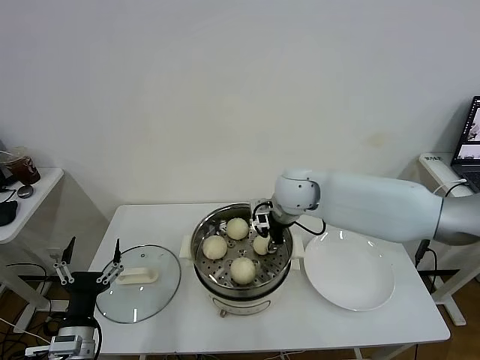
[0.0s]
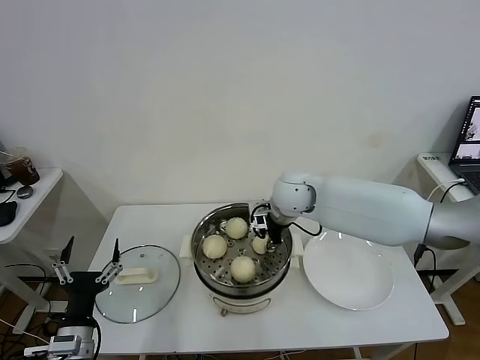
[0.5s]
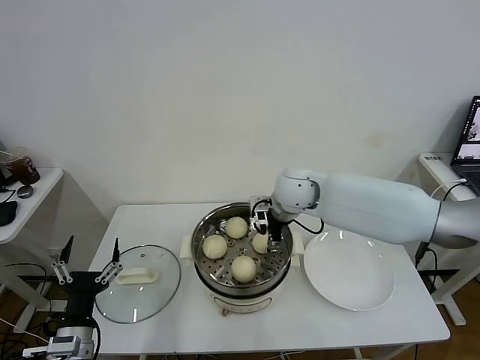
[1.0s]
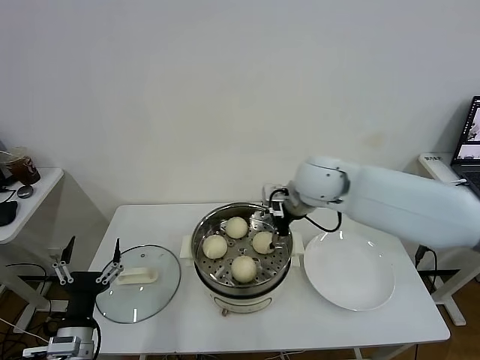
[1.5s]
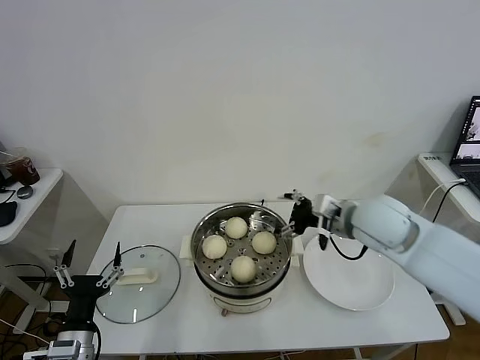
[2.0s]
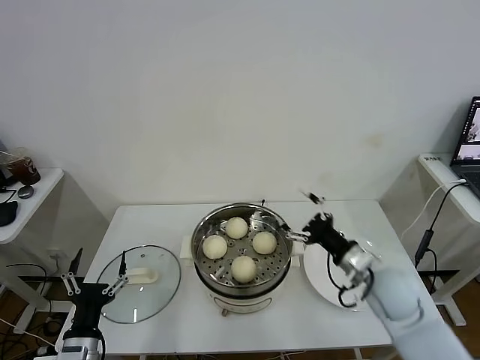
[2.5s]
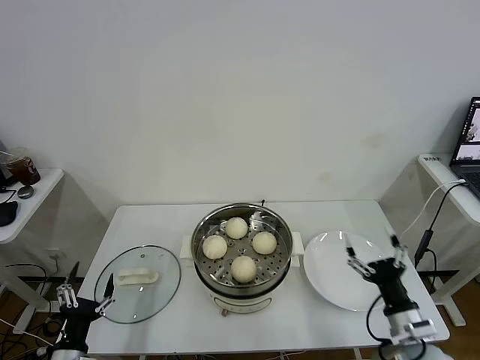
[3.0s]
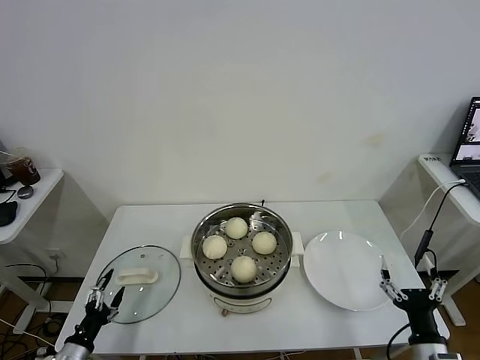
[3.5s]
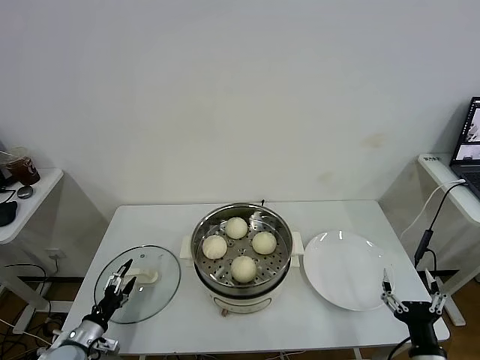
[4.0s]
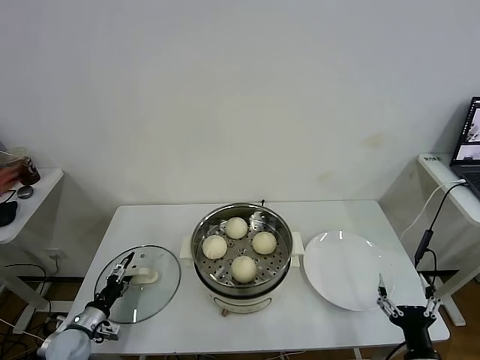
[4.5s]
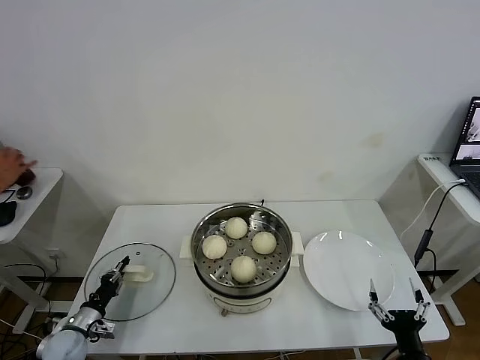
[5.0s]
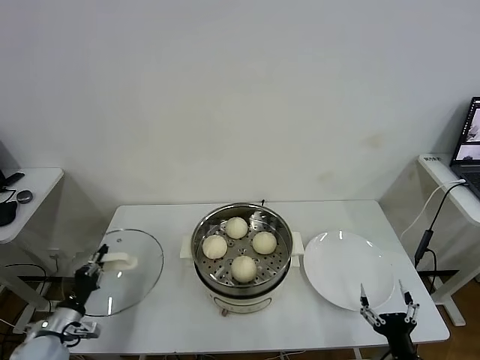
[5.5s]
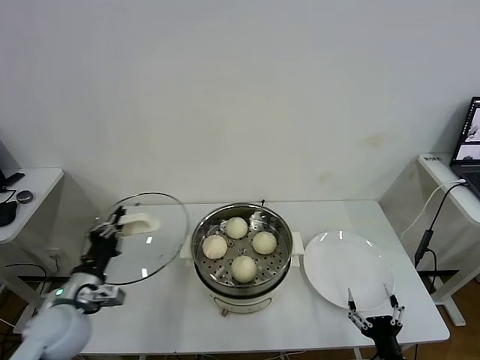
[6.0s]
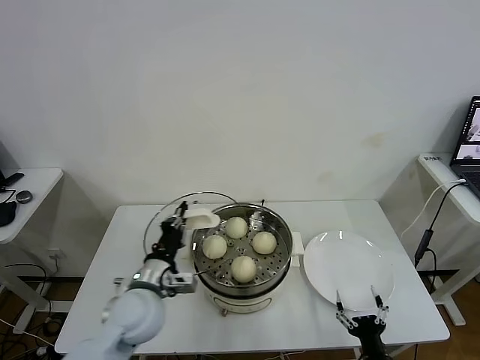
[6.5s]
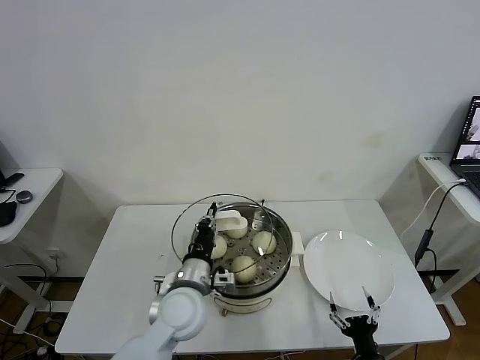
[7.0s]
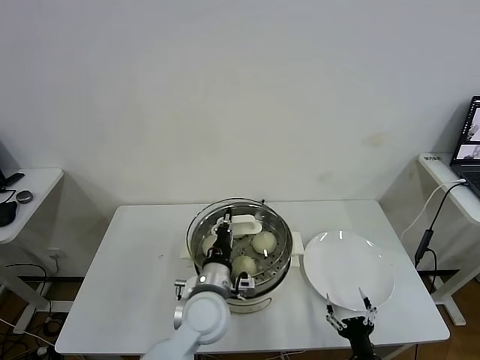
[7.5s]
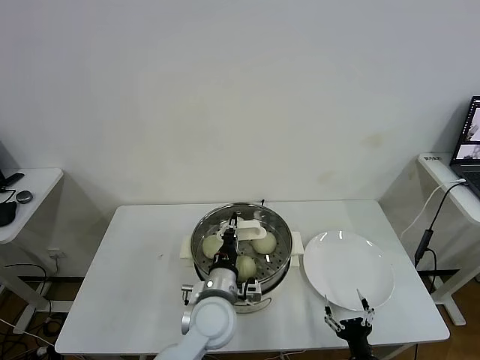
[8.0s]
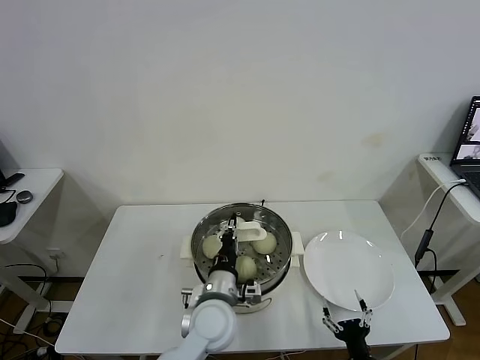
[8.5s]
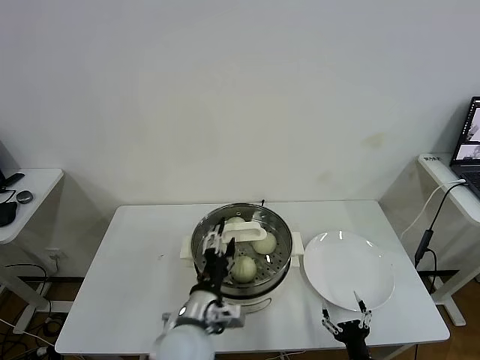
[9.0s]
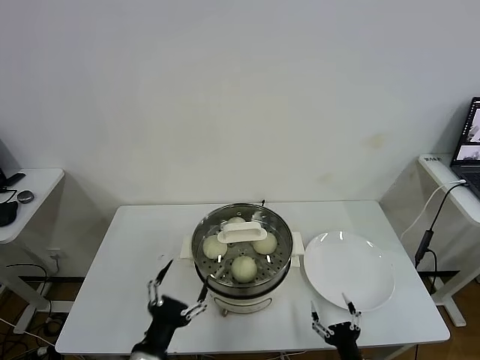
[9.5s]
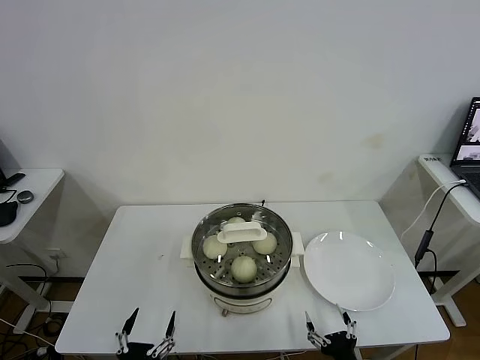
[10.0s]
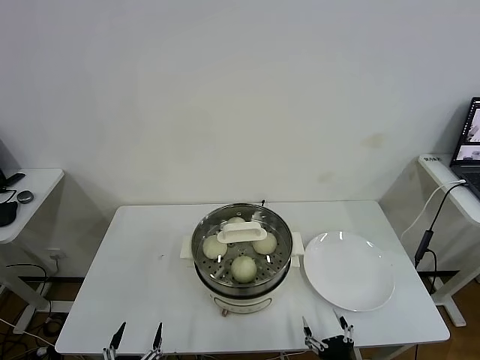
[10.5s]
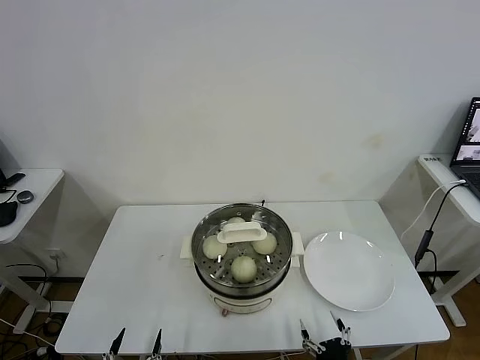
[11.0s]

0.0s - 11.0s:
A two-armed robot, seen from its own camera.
Task of the whole recording: take steamed baozi put them in steamer.
Step, 1.5s - 5.0s: Grasp the pot lid with left gripper.
Step, 5.5s - 9.0s: Place the pot lid on the steamer with left gripper.
0.0s - 2.0s: The right gripper shifts some 15 cm to the right and backward, and opens its fingers.
2.0s - 3.5s: The right gripper shifts some 35 cm backward, downward and to the right. Meanwhile the left gripper shifts about 15 cm downward and to the left.
3.5s - 5.5s: The left gripper moves forward, approximately 10 cm, and closes. Meanwhile the right gripper shifts by roughly 5 cm.
5.5s - 7.5s: The right gripper moves downward, approximately 5 cm. Meanwhile the left gripper travels to the right by approximately 35 cm.
7.5s - 9.0s: The left gripper goes approximately 5 cm backward, and opens up.
9.0s - 11.0s: The left gripper moves backward, to the left and downward, approximately 30 cm. The right gripper ends up roughly 5 cm from where it was.

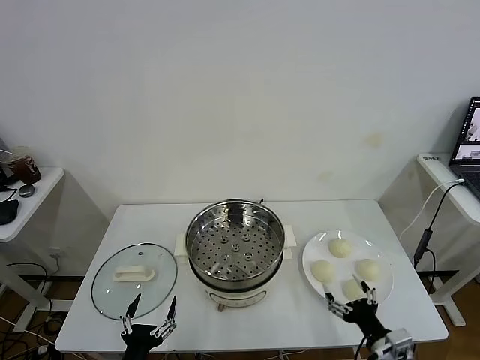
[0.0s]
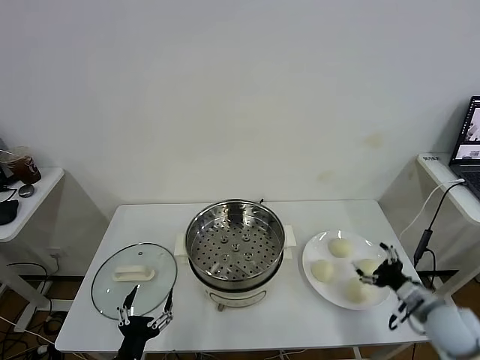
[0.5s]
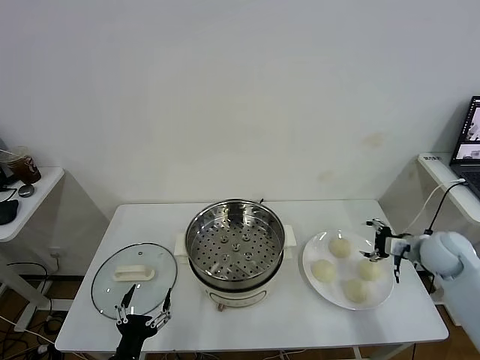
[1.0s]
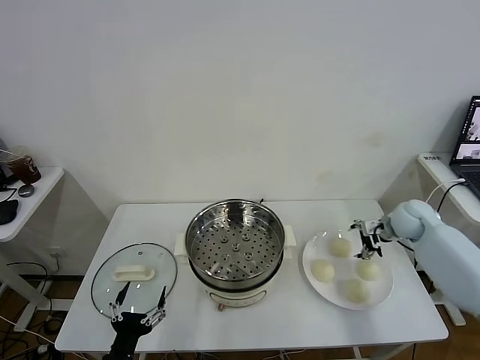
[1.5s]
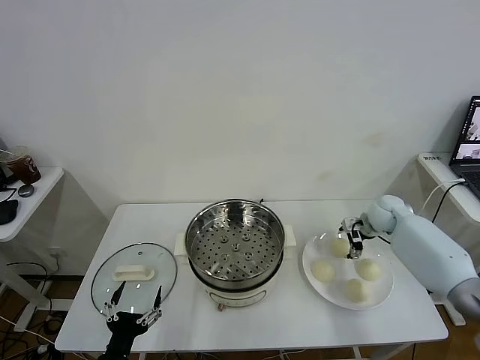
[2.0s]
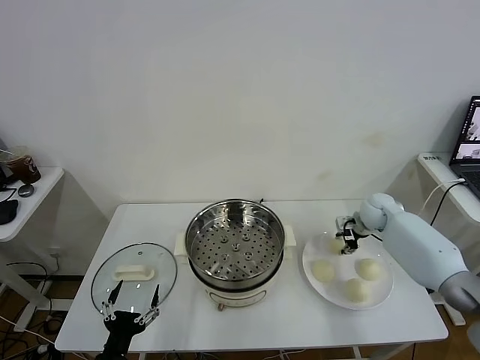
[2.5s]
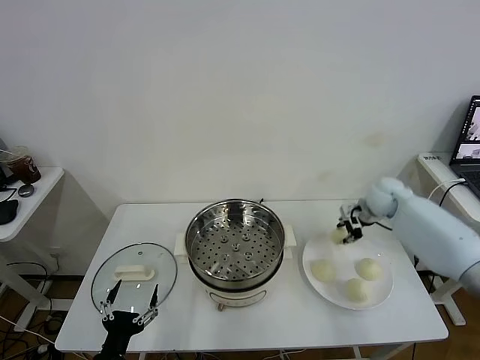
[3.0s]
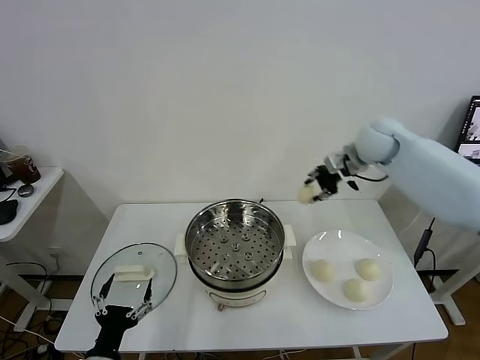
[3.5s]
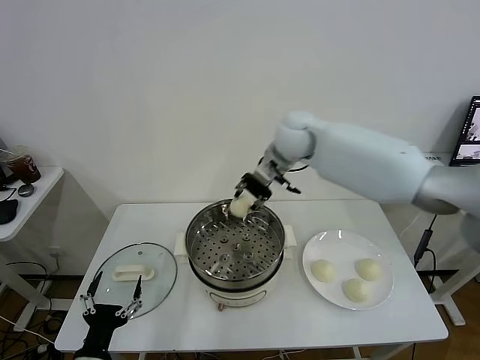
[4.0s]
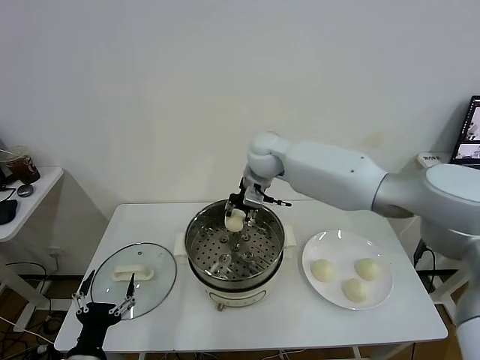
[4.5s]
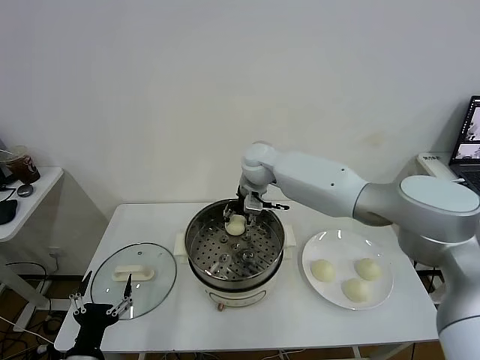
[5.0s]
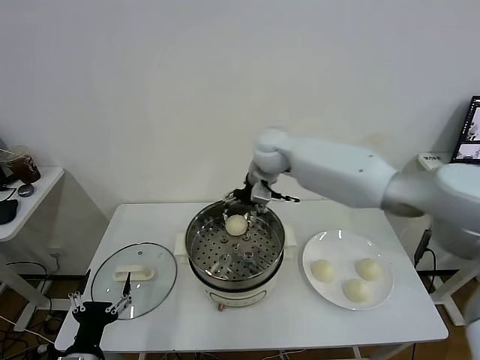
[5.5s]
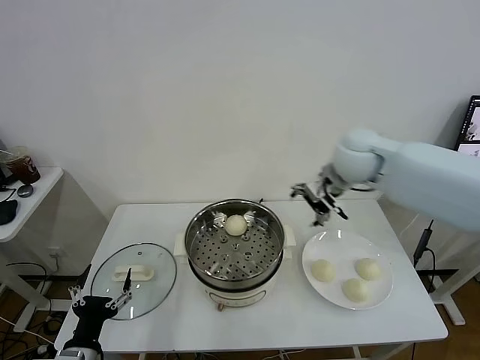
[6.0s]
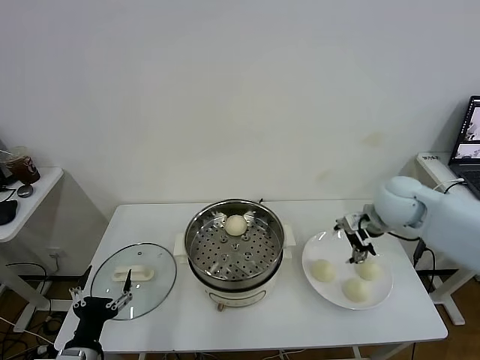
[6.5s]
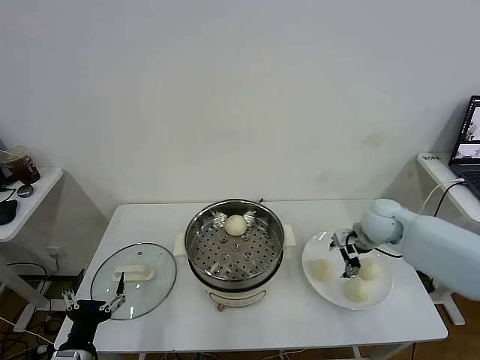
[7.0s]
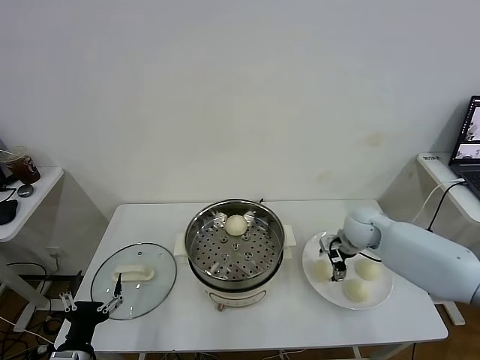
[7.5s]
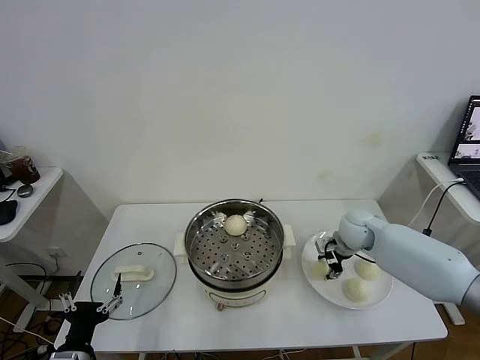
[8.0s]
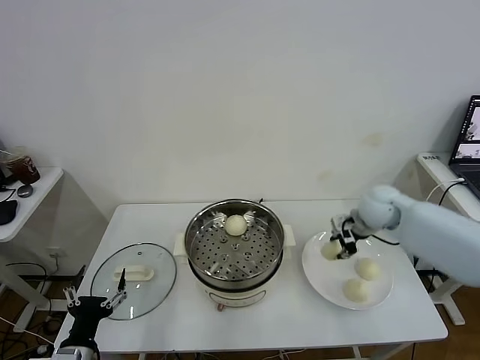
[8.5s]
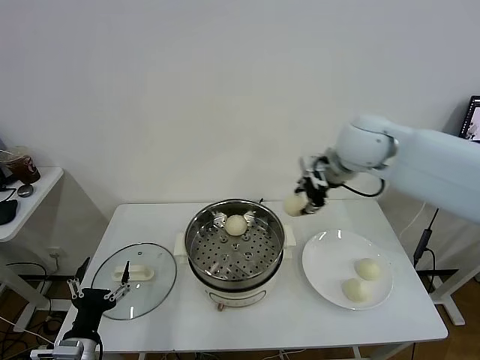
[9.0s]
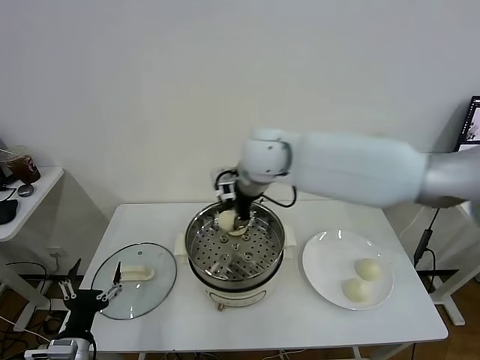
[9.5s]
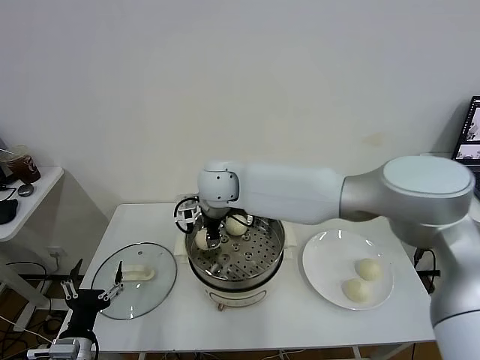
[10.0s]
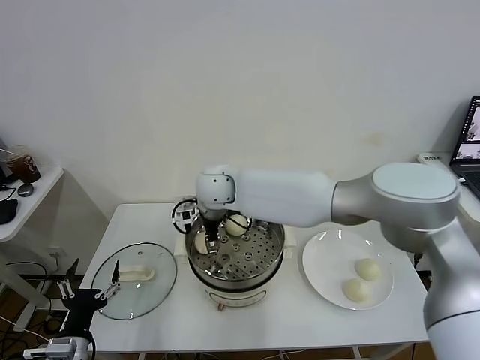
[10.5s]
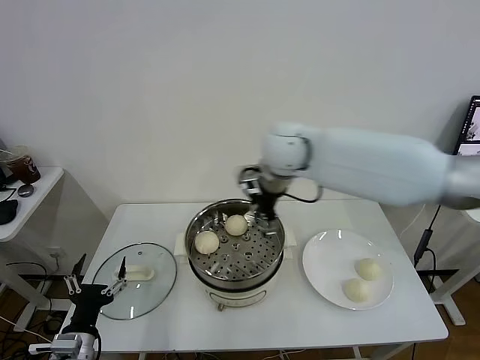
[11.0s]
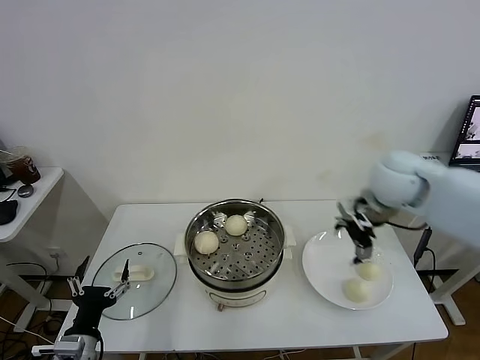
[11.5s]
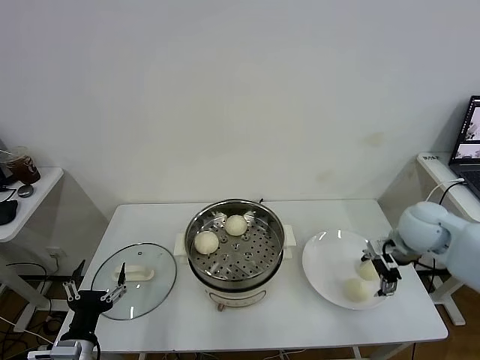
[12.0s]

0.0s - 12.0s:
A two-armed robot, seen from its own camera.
Task of the whole recording: take steamed baozi put them in steamer.
Step, 0.0s - 2.0s: Grasp the baozi in the plate with right gripper.
Step, 3.0s - 5.0s: Place the baozi on the steamer with right gripper.
Step, 6.0s - 7.5s: Grasp the baozi in the plate with right gripper.
Step, 8.5s - 10.5s: Place the baozi on the steamer with right gripper.
2.0s - 4.0s: The right gripper goes about 35 cm to the left and upward, and closes.
4.0s - 6.0s: The right gripper is displaced to the right and backward by approximately 20 cm, and opens up.
6.0s - 8.0s: The right gripper shifts approximately 20 cm downward, and closes up.
8.0s - 10.0s: The right gripper heads to the left, covering about 35 cm.
10.0s - 12.0s: The right gripper heads to the right, covering roughly 40 cm, and opens up.

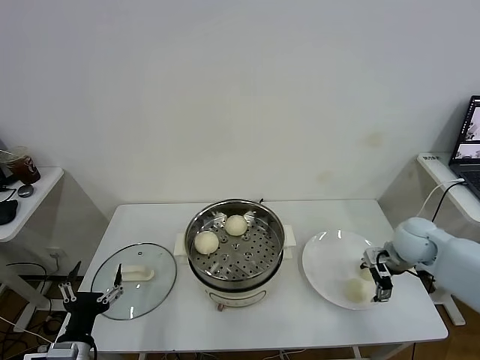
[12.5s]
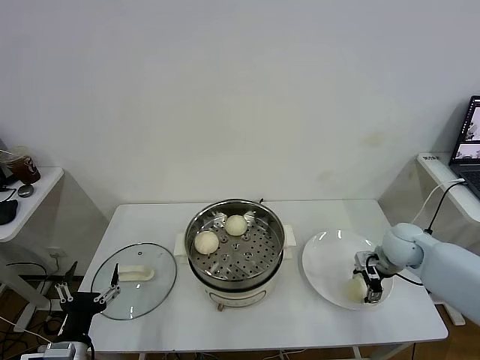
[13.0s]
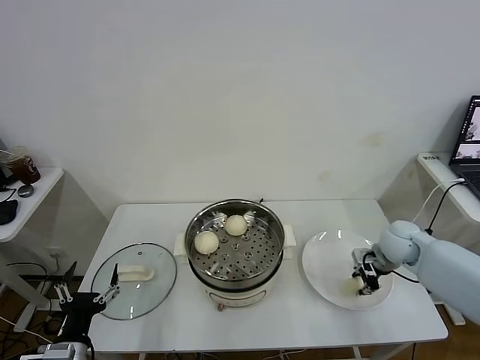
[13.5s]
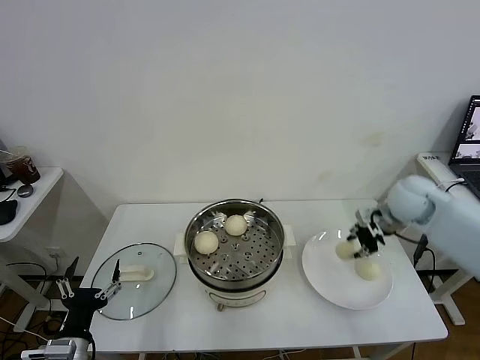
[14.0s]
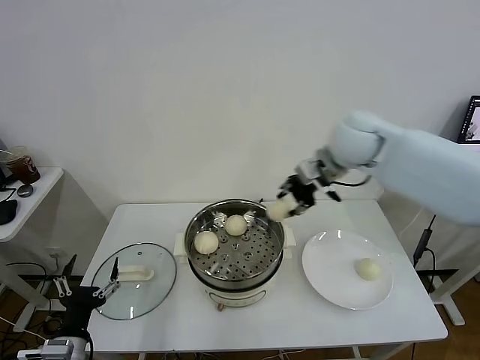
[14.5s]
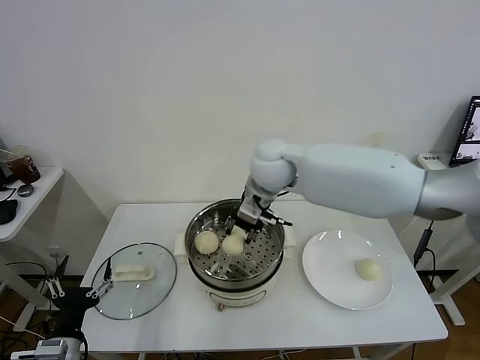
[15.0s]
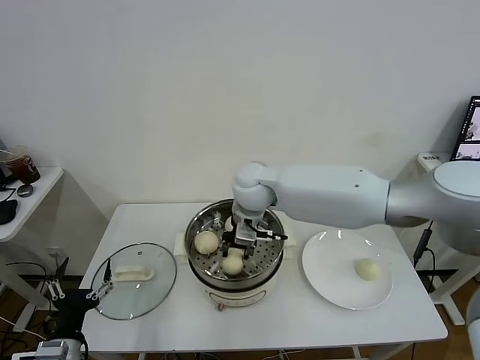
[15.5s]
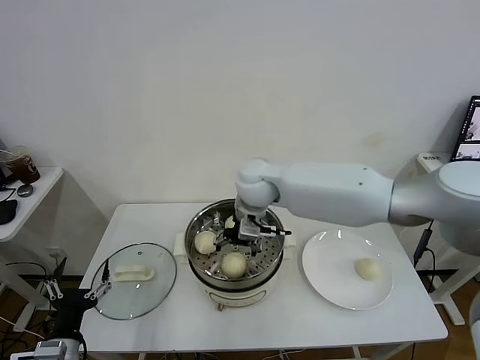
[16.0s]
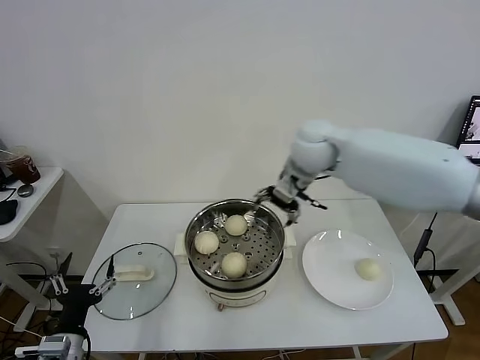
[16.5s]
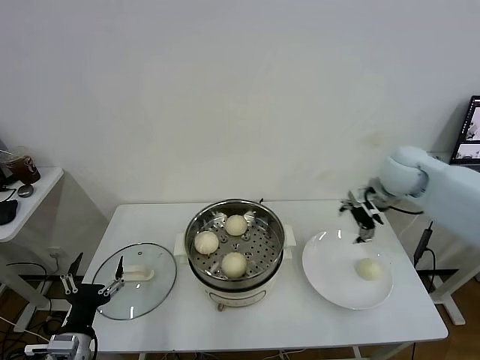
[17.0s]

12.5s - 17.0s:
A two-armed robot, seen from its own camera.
Task of the whole recording: take steamed baozi put them in steamer.
Step, 13.5s - 16.0s: Place the baozi on the steamer with right gripper.
12.5s - 14.5s: The right gripper heads upward and to the left, covering some 30 cm, and closes up.
14.5s - 17.0s: The right gripper heads to the right and downward, covering about 20 cm, and opens.
